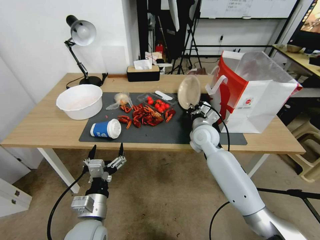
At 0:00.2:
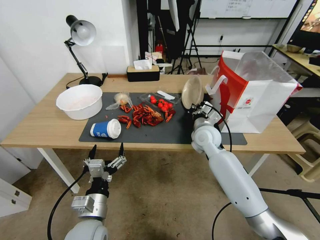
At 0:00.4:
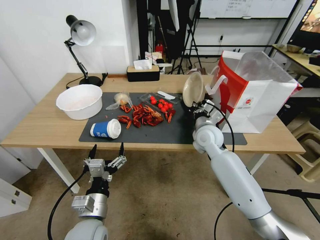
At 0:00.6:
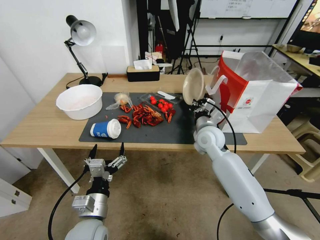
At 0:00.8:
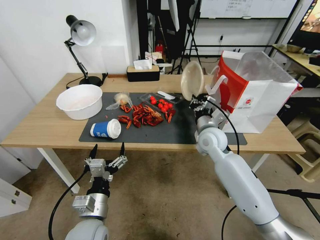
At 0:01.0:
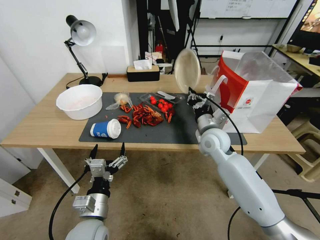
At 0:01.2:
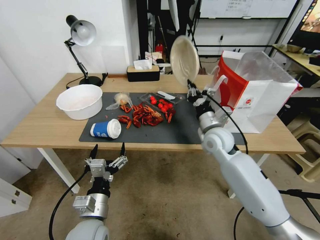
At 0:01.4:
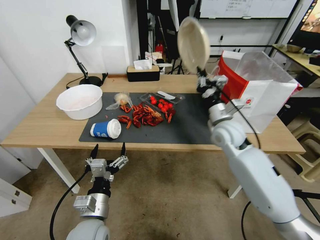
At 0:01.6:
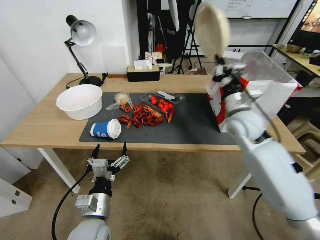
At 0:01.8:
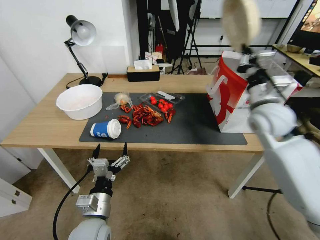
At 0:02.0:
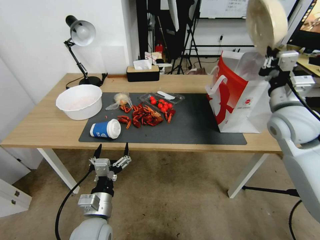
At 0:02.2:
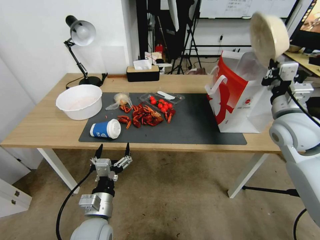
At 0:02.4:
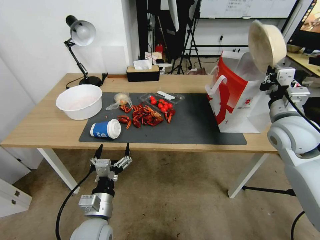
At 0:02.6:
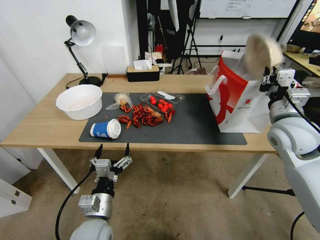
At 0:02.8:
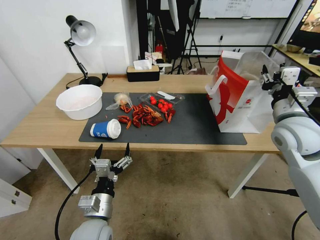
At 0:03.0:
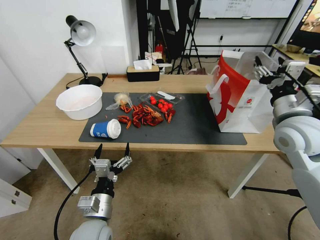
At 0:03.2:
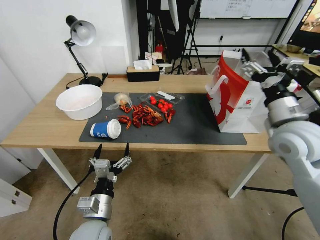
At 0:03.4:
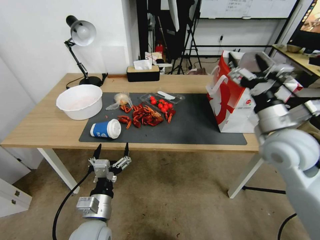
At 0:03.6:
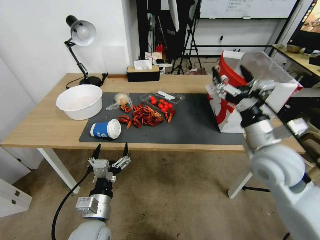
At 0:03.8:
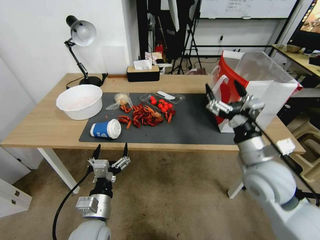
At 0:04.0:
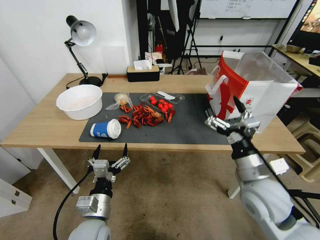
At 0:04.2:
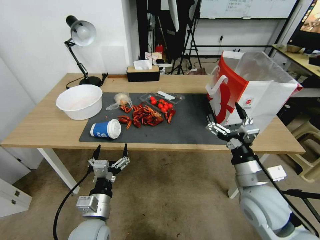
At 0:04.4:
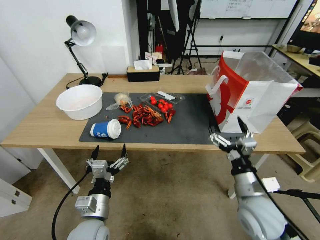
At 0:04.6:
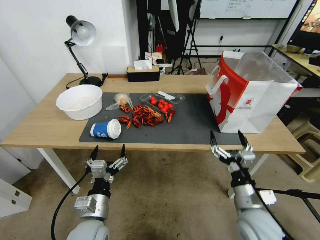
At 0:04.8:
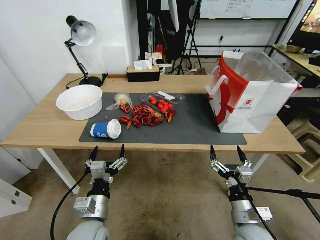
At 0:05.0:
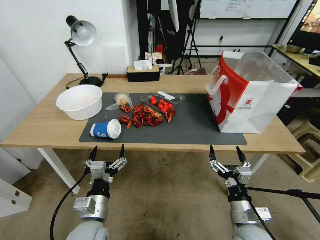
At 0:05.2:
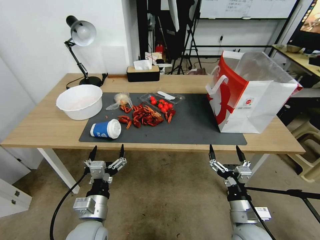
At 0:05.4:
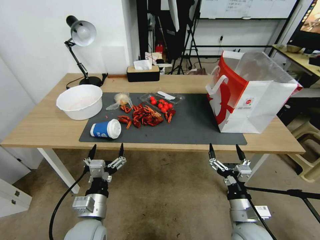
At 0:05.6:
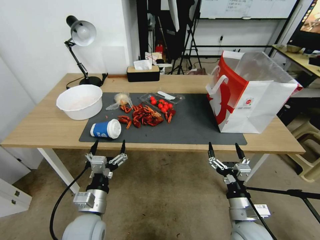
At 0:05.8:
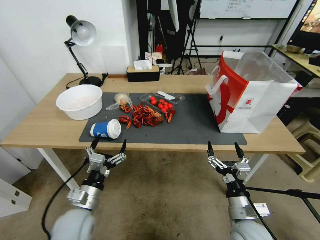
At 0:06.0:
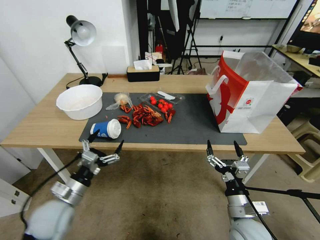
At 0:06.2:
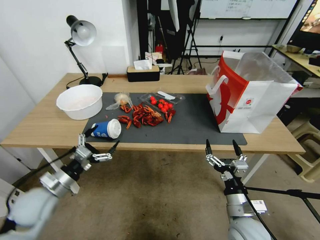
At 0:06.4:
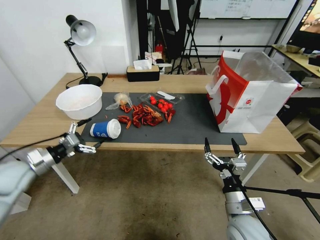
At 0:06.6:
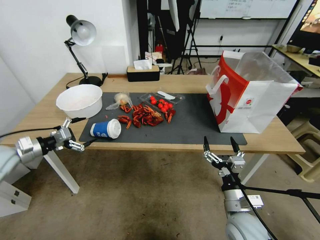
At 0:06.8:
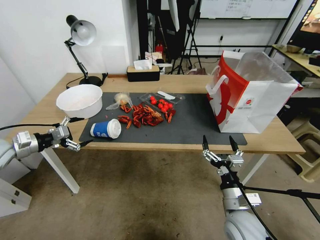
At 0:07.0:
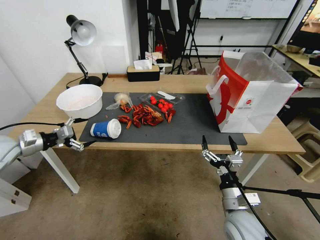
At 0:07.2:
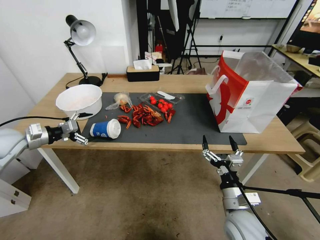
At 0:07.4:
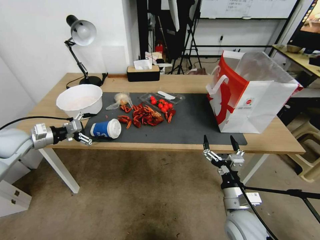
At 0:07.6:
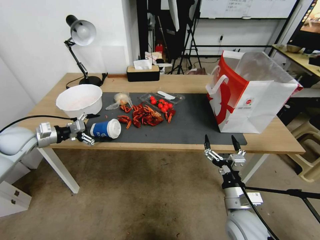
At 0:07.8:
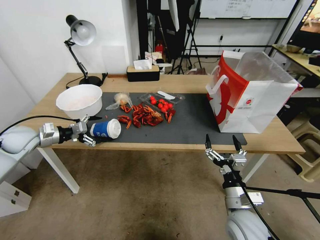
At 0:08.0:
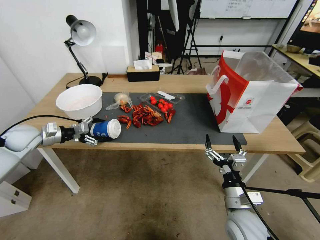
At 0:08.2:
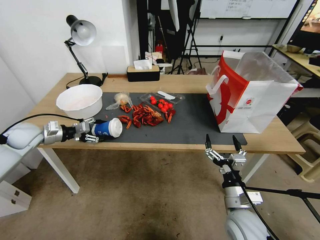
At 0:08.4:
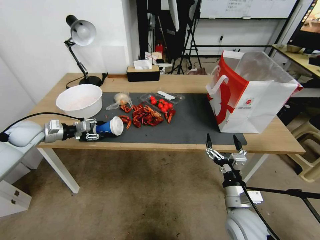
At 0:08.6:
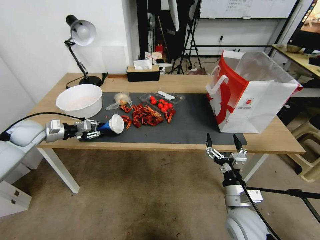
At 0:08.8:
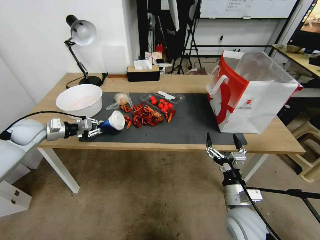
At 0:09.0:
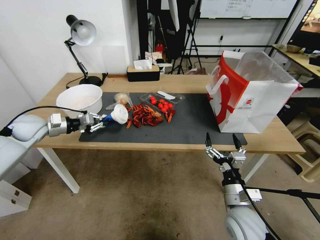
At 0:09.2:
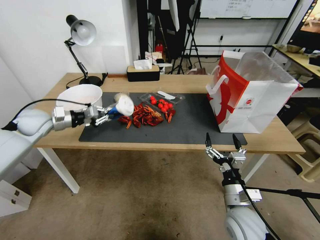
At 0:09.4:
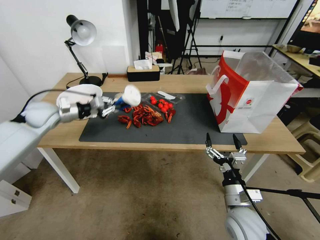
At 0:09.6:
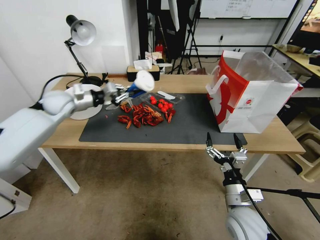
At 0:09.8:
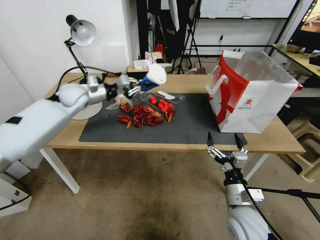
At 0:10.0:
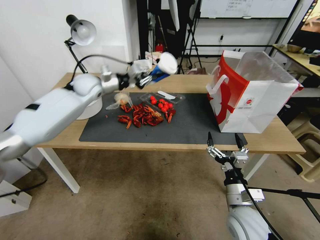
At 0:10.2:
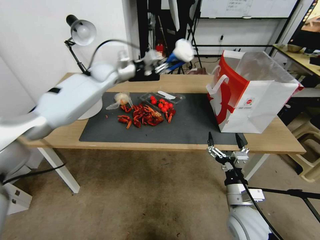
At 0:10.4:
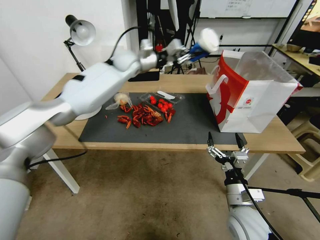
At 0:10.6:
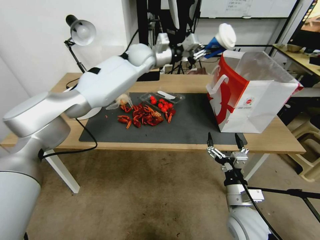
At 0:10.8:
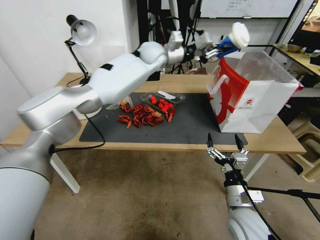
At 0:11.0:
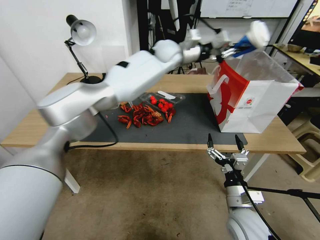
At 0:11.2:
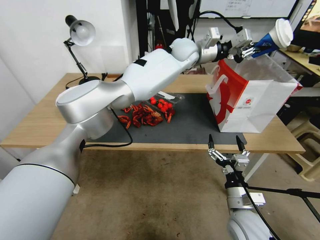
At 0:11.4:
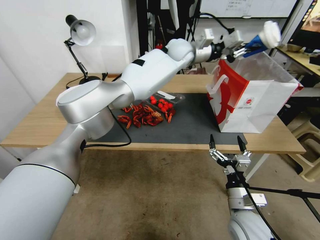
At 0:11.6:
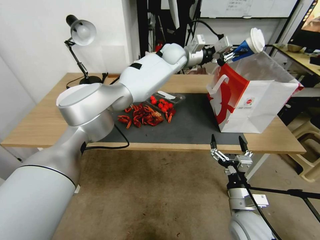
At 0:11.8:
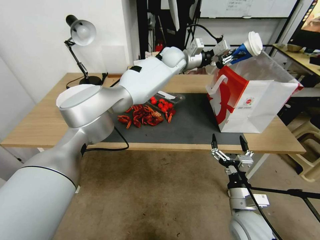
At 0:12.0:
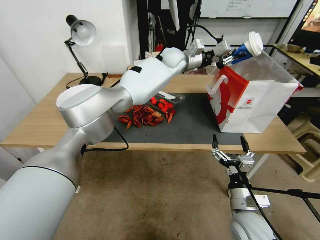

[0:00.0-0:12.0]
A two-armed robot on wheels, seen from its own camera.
0:00.0 to 0:01.6: The right gripper shifts some 15 cm upward and to the right.
0:01.6 to 0:03.0: The right gripper moves backward, to the right and upward, some 10 cm, and opens up.
0:03.0 to 0:04.4: The right gripper heads downward, backward and to the left, covering approximately 25 cm.
0:04.4 to 0:06.0: The right gripper heads downward, covering roughly 5 cm; the left gripper heads to the left, covering about 10 cm.
0:06.0 to 0:07.6: The left gripper travels forward, to the left and upward by roughly 30 cm.
0:07.6 to 0:09.0: The left gripper changes place by approximately 5 cm, and closes its fingers.
0:09.0 to 0:10.4: The left gripper moves to the right, forward and upward, approximately 40 cm.
0:10.4 to 0:12.0: The left gripper moves to the right, roughly 15 cm.

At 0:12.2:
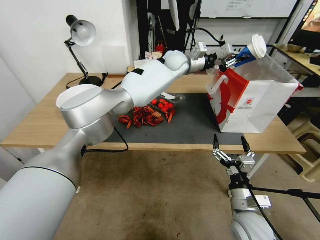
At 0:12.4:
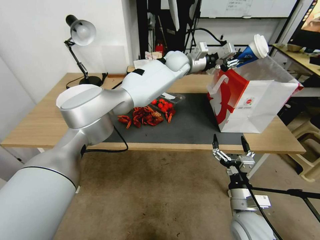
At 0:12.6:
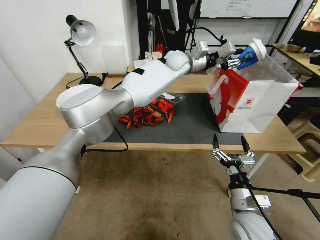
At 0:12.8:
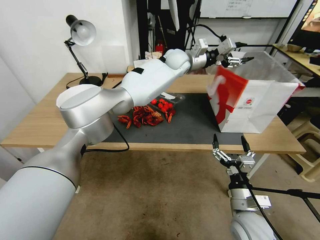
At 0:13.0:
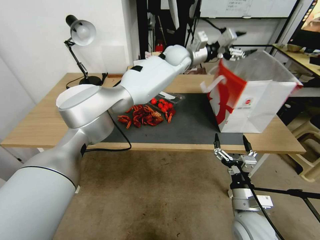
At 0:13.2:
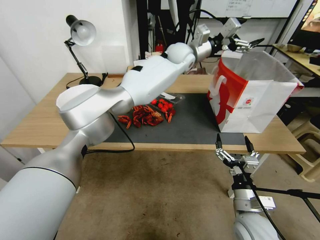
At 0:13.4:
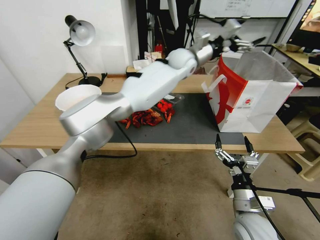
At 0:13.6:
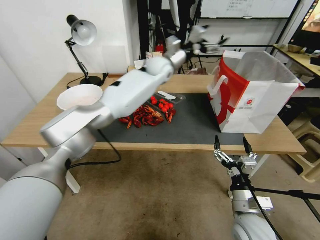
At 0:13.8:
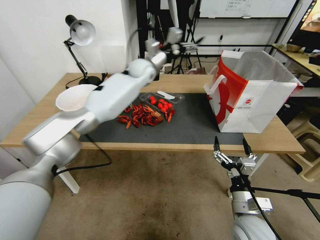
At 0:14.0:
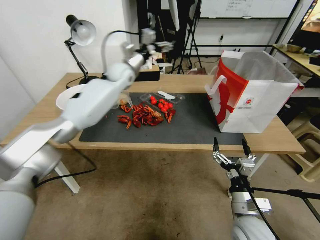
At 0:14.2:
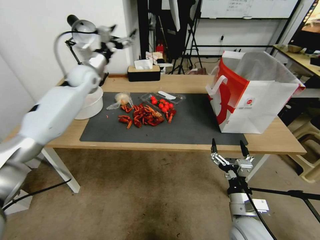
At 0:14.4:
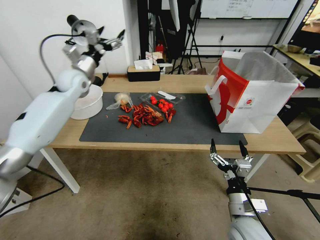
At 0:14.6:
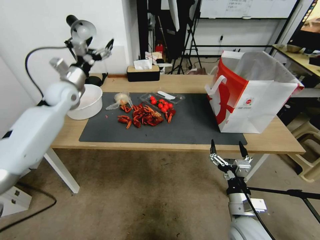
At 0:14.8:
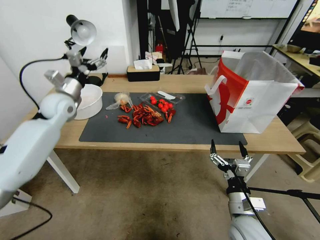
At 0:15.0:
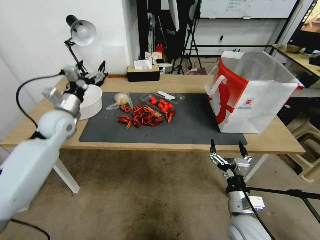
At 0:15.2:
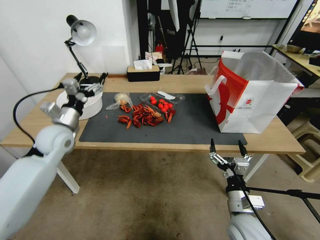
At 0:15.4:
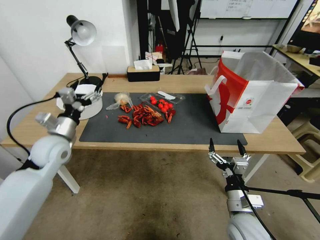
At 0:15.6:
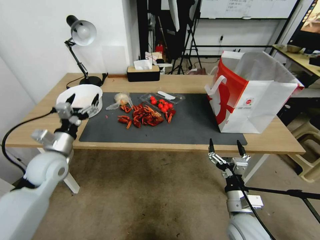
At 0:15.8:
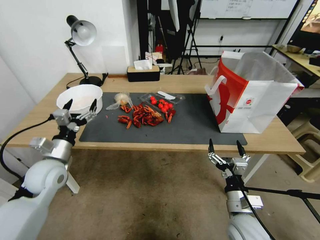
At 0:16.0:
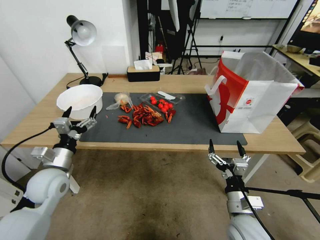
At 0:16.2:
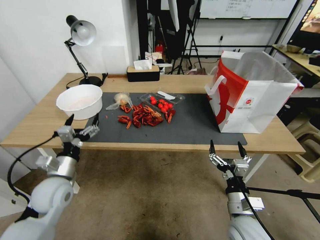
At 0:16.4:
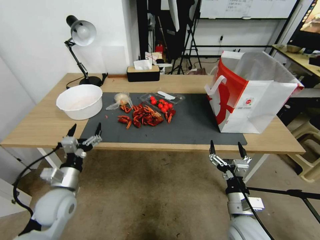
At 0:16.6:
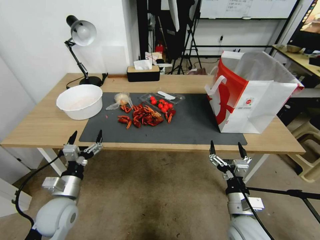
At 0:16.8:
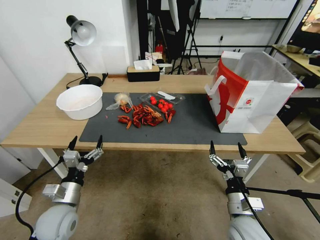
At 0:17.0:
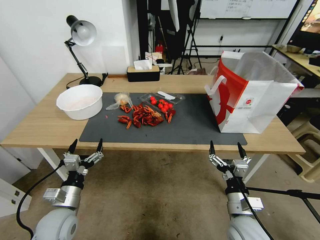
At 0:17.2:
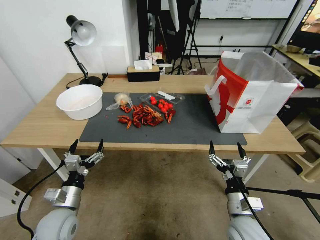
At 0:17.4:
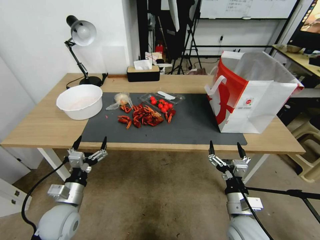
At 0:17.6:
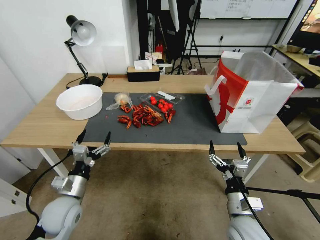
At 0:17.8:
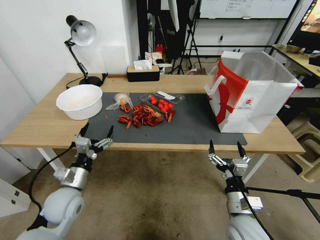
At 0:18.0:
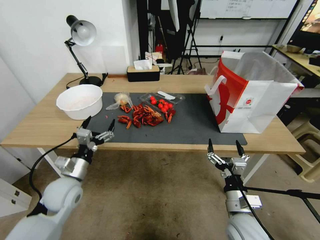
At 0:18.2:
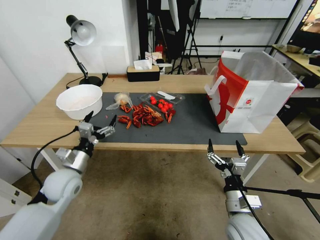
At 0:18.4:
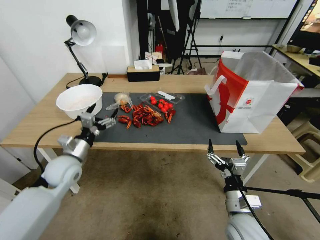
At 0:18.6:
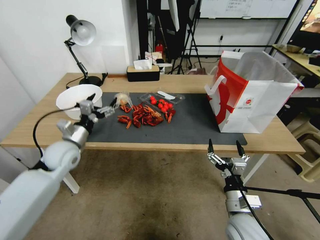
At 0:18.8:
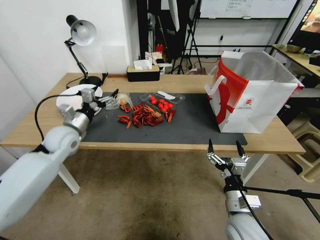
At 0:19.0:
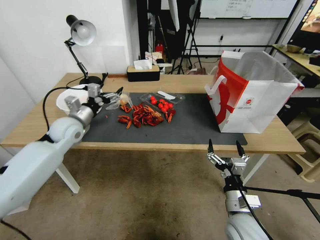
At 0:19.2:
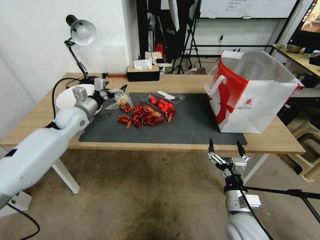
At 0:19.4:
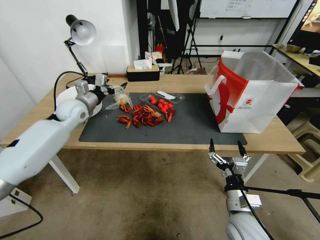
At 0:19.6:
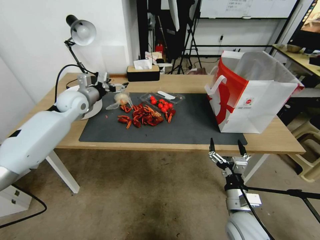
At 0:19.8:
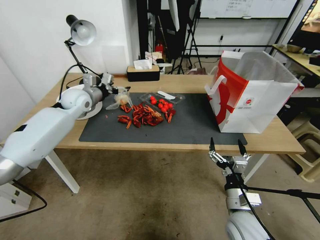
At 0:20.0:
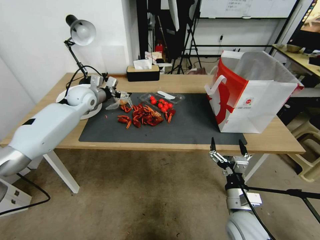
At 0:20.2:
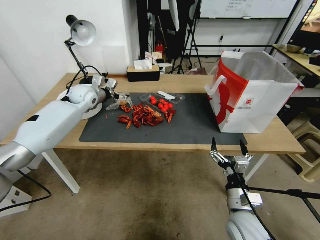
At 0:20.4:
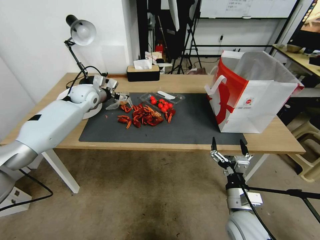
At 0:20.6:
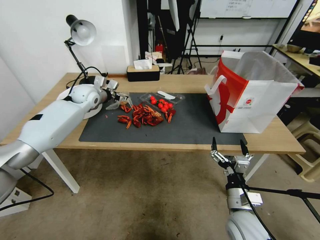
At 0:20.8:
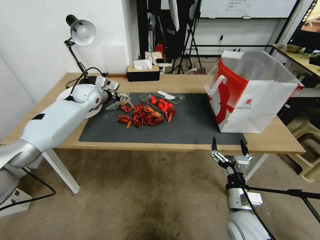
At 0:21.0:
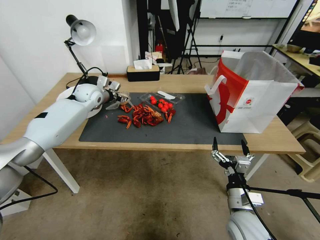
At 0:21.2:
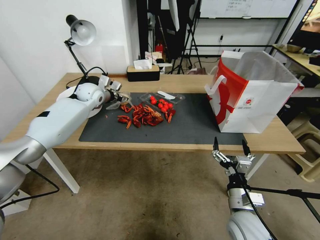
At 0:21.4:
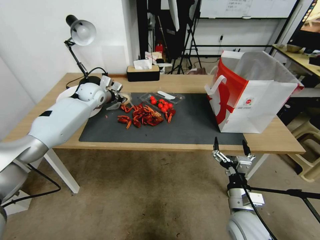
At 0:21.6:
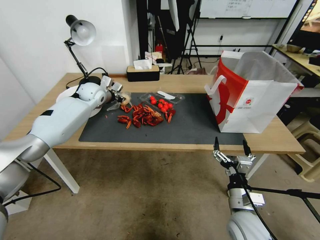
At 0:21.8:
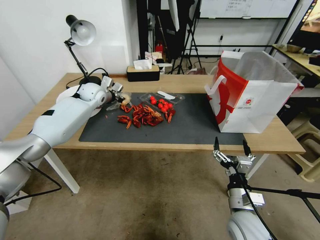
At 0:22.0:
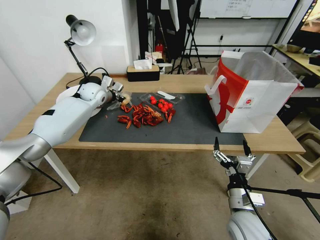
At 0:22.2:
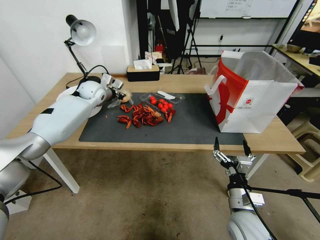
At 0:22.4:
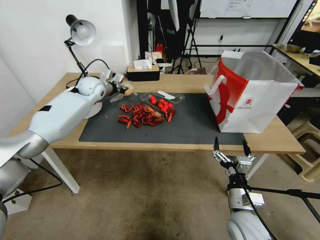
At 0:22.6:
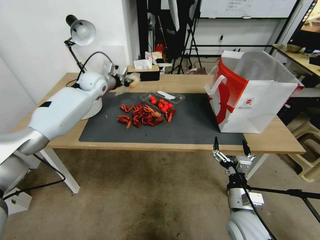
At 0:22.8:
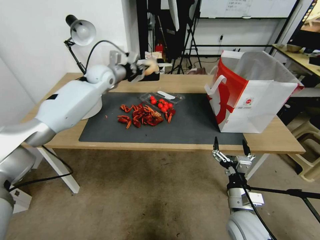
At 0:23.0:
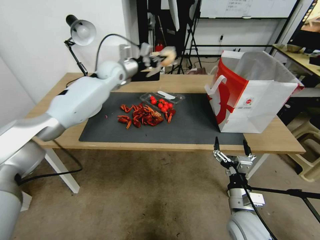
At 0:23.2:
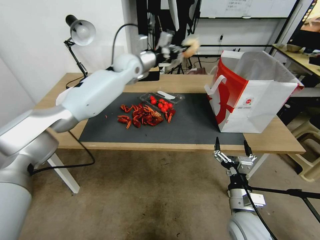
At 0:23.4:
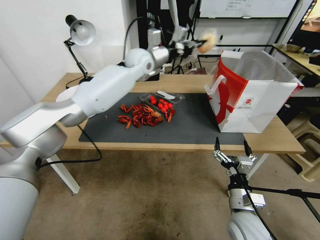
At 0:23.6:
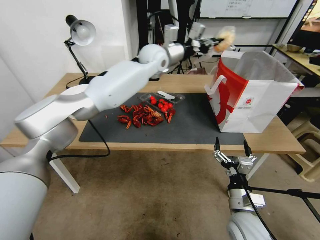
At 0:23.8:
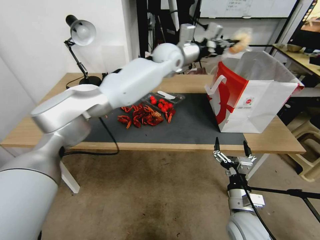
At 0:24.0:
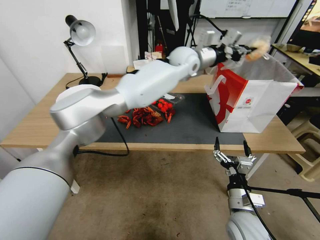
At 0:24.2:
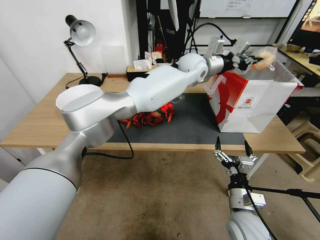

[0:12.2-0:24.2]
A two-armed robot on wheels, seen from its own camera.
0:12.2 to 0:13.8: The left gripper travels to the left by approximately 15 cm, and opens its fingers.
0:13.8 to 0:15.2: The left gripper is displaced backward, to the left and downward by roughly 35 cm.
0:15.2 to 0:16.6: The left gripper goes roughly 20 cm backward and downward.
0:16.6 to 0:18.2: The left gripper travels forward by about 5 cm.
0:18.2 to 0:19.8: The left gripper shifts about 30 cm forward and upward.
0:19.8 to 0:21.2: The left gripper shifts about 5 cm forward, and closes its fingers.
0:21.2 to 0:22.6: The left gripper changes place by some 5 cm, and closes.
0:22.6 to 0:24.2: The left gripper heads to the right, covering roughly 35 cm.
